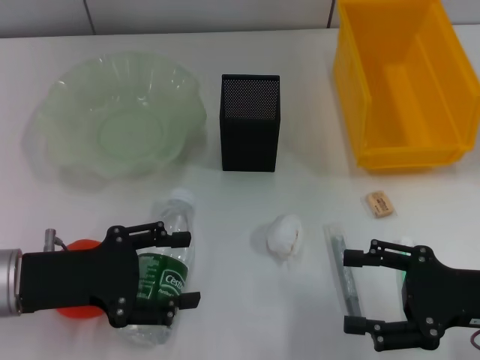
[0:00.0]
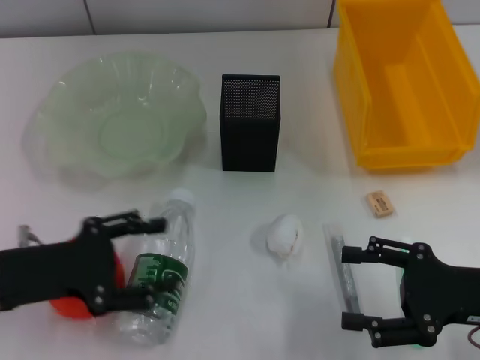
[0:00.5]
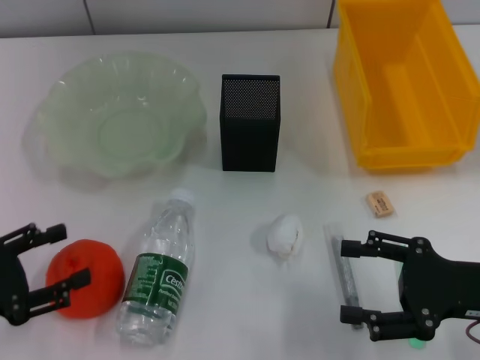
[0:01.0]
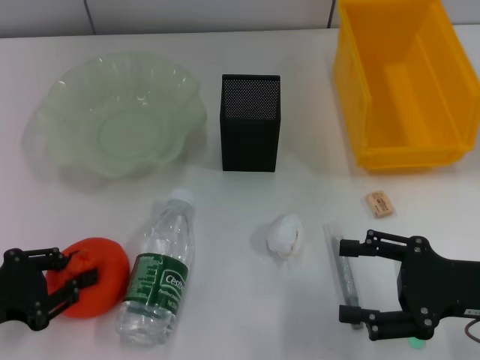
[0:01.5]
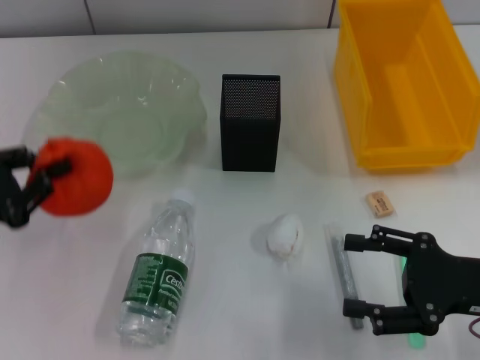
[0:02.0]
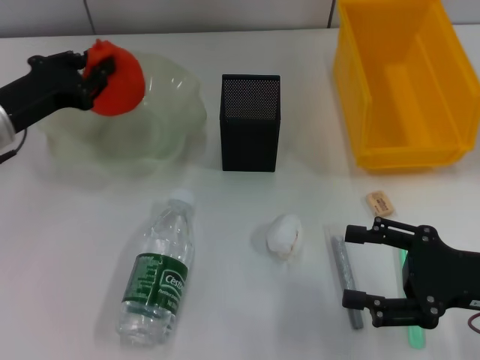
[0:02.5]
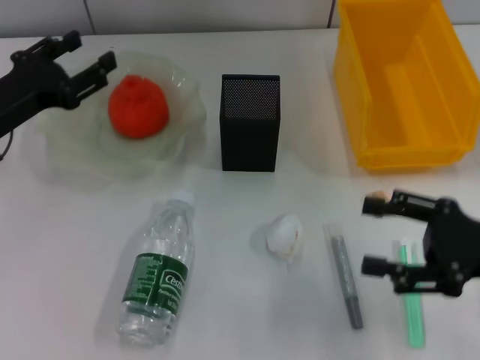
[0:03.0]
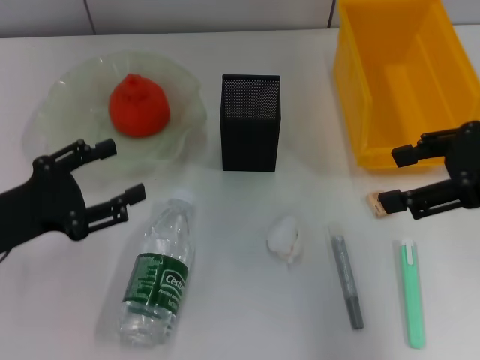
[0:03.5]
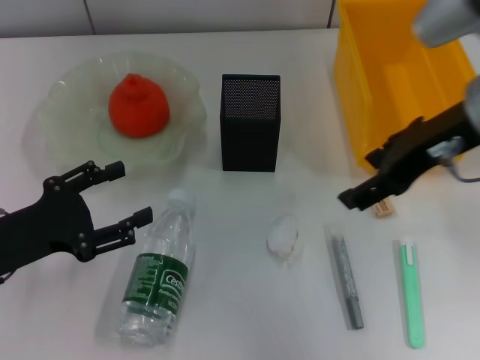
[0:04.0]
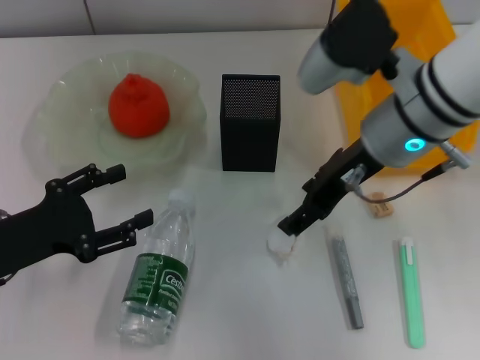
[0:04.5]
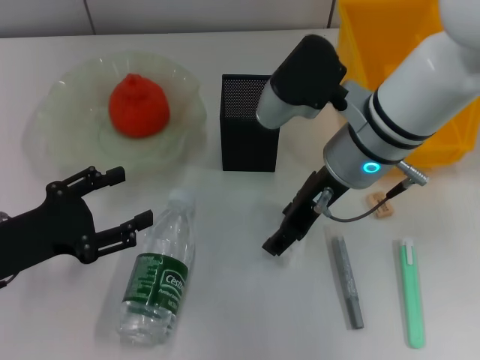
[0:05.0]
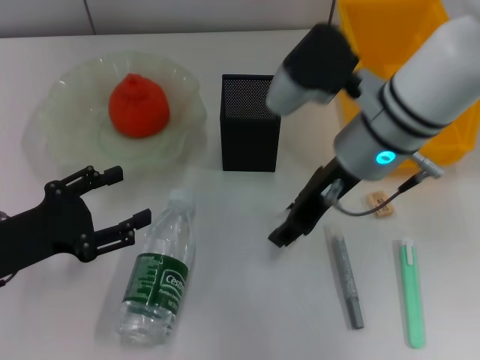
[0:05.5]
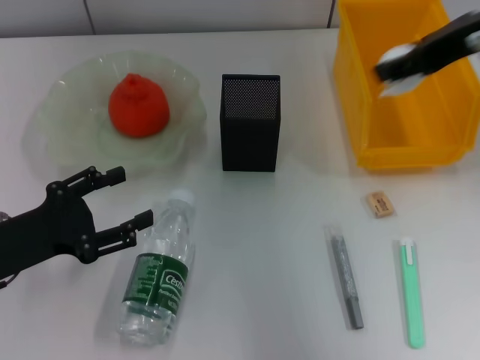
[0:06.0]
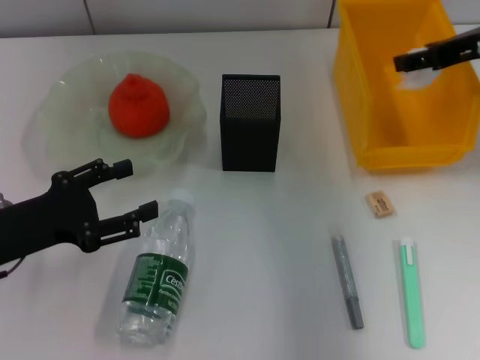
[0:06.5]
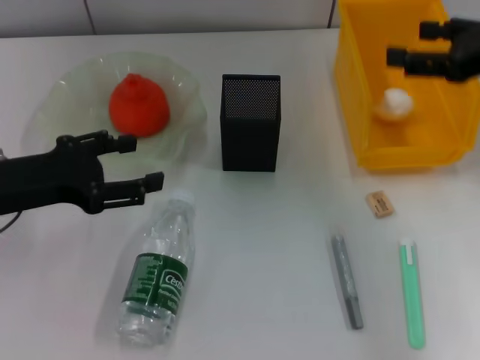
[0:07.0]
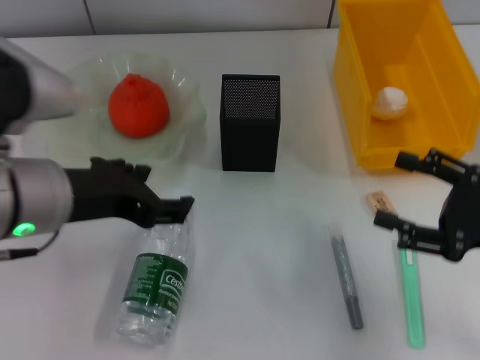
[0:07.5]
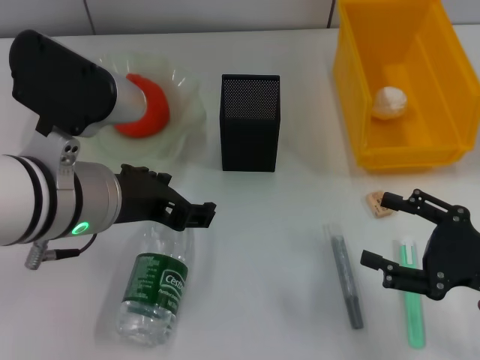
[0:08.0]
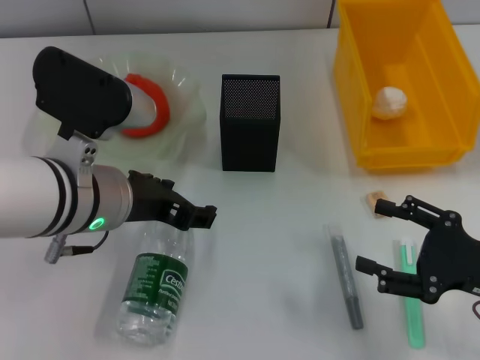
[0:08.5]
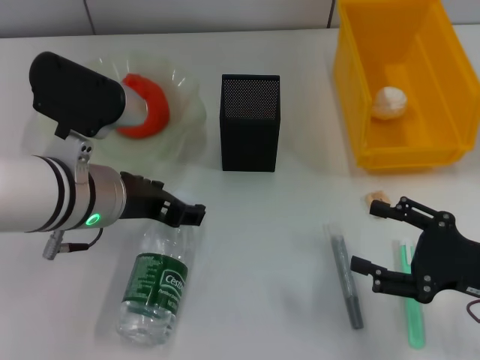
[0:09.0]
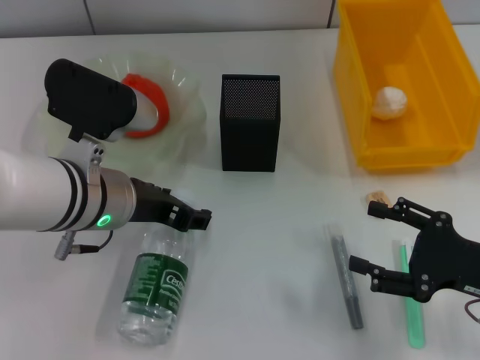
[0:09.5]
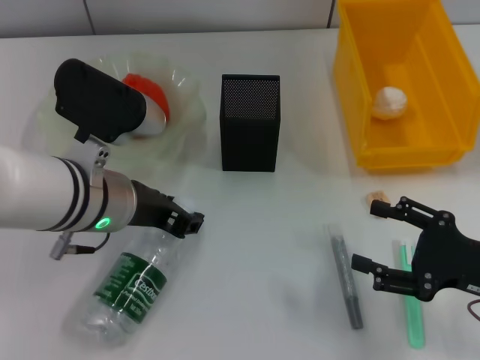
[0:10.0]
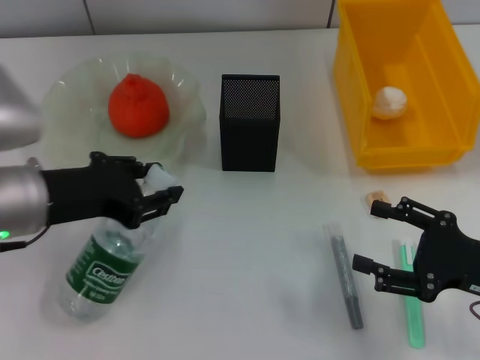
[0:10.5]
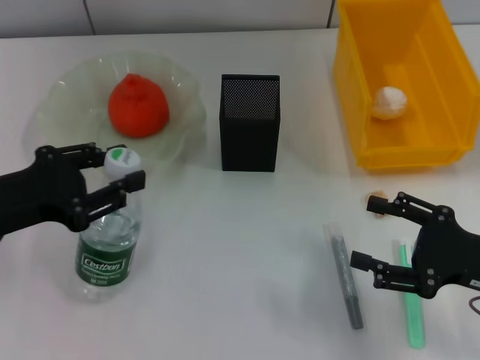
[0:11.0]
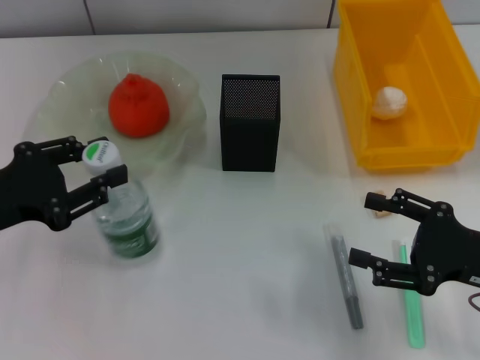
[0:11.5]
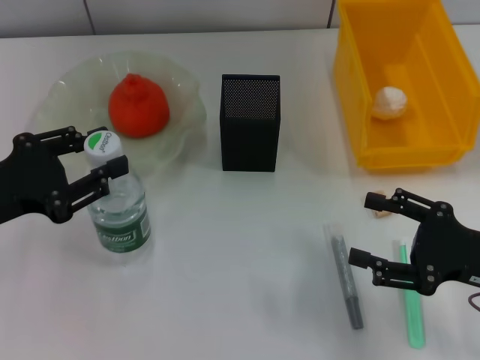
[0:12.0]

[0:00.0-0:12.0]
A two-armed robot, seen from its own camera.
Step, 0:00.0 to 0:01.5: Grab the orange with the left hand.
Step, 0:02.0 to 0:02.5: Place the orange into the fruit bowl with the left hand.
Step, 0:03.0 to 0:05.0: Grab the paper ball with the right hand.
Step, 0:05.5 to 0:06.5: Place the paper ball into the trash can with the right hand.
Step, 0:07.5 to 0:09.5: Grab the water bottle with the left hand.
0:00.0 to 0:02.0: The left gripper is displaced to the left by about 10 cm, and closes its fingers.
0:02.0 to 0:04.0: The right gripper moves upward, forward and to the left, approximately 20 cm. Meanwhile the left gripper reaches roughly 10 cm forward, then returns, and opens its fingers.
0:04.0 to 0:06.0: The right gripper shifts approximately 5 cm to the right, and closes its fingers.
0:06.0 to 0:08.0: The right gripper travels downward and backward by roughly 25 cm, and opens its fingers; the left gripper moves to the right and upward, about 20 cm.
0:08.0 to 0:10.0: The left gripper changes place by roughly 5 cm, and closes its fingers.
0:10.0 to 0:12.0: The left gripper is displaced to the left by approximately 15 cm.

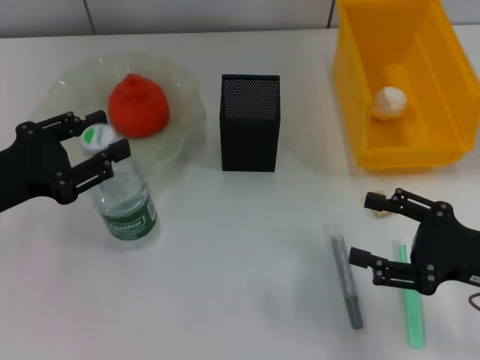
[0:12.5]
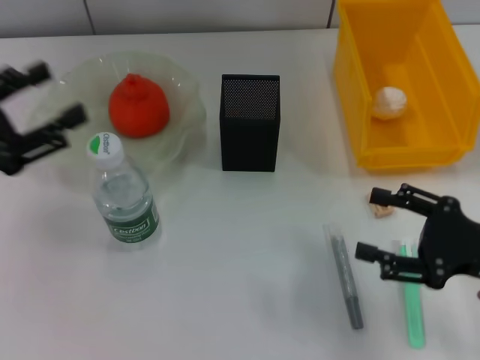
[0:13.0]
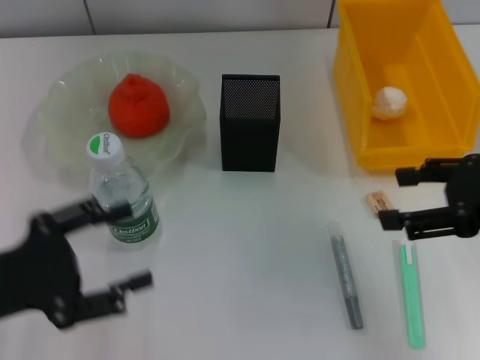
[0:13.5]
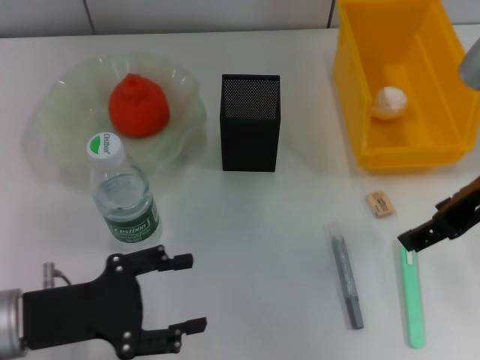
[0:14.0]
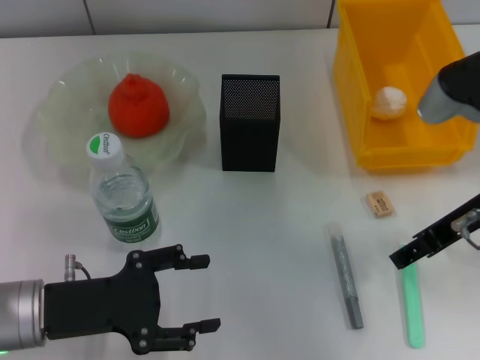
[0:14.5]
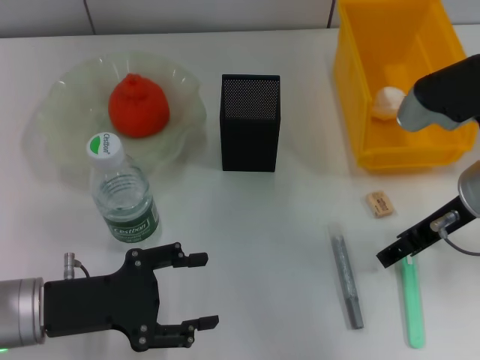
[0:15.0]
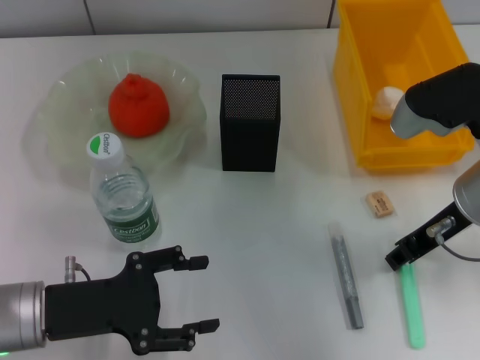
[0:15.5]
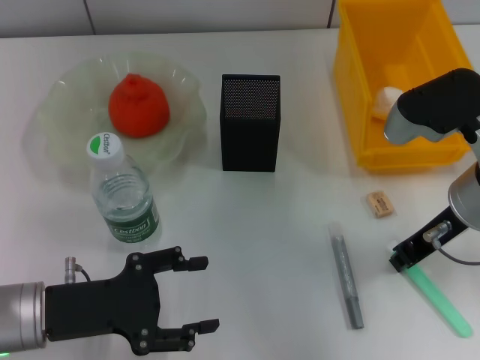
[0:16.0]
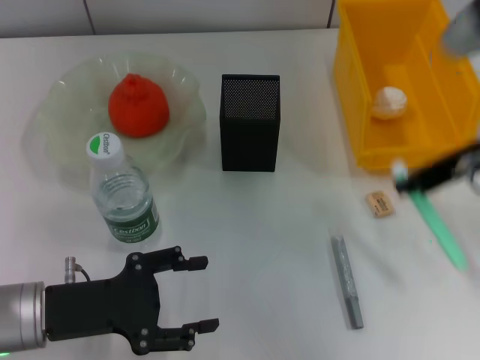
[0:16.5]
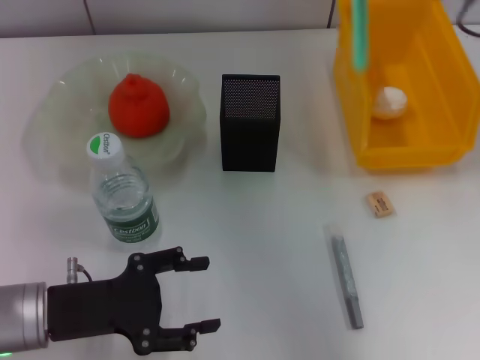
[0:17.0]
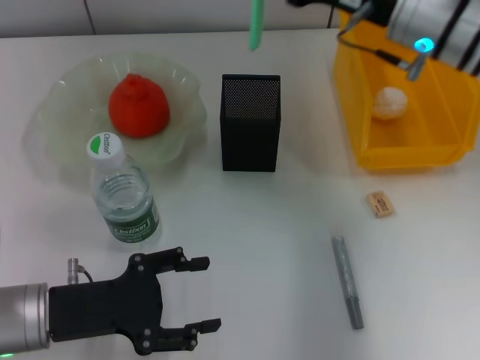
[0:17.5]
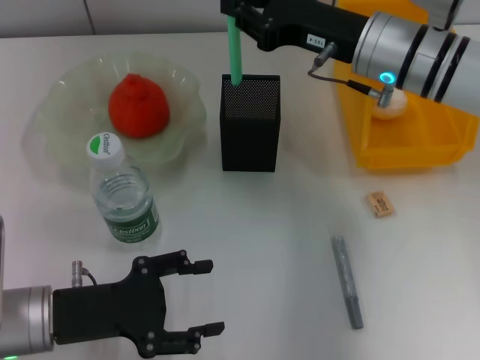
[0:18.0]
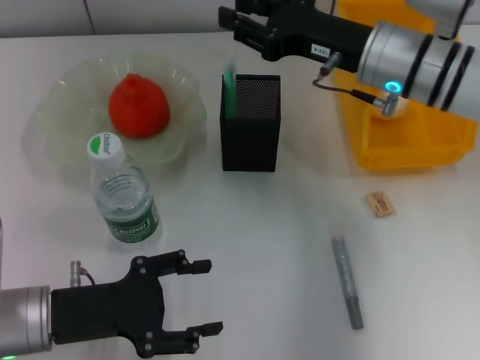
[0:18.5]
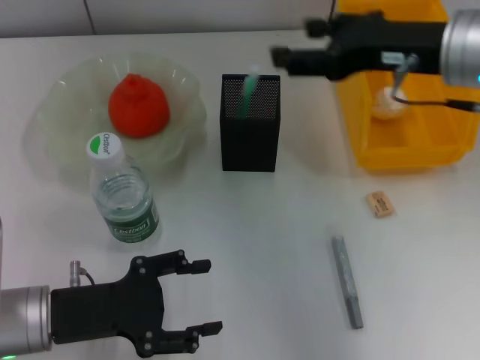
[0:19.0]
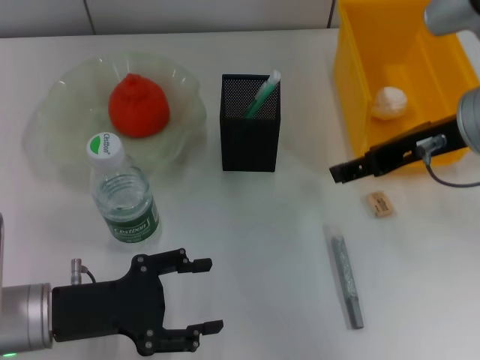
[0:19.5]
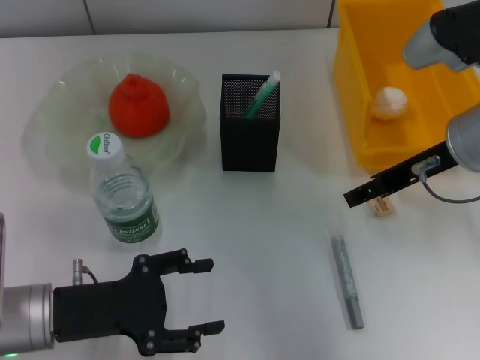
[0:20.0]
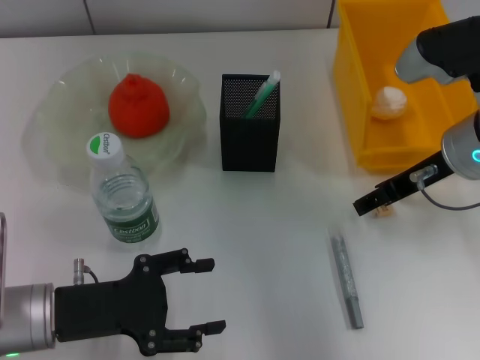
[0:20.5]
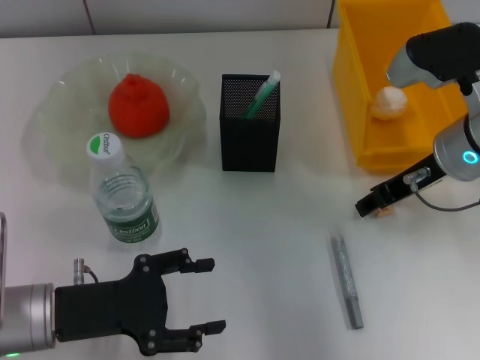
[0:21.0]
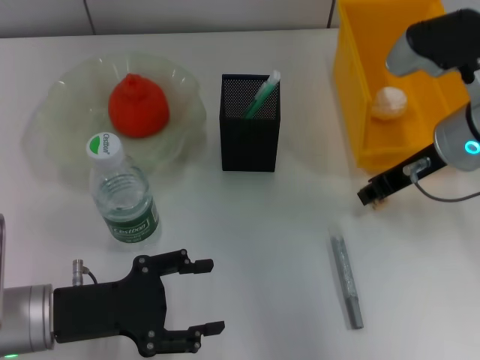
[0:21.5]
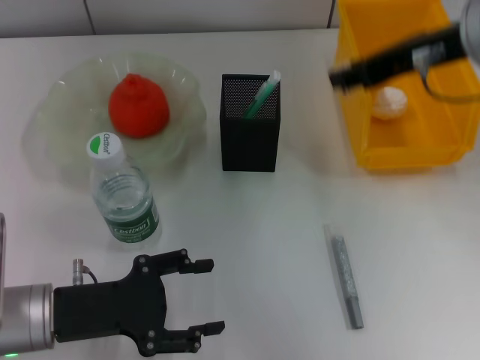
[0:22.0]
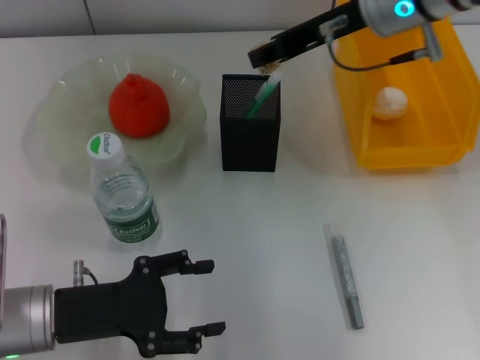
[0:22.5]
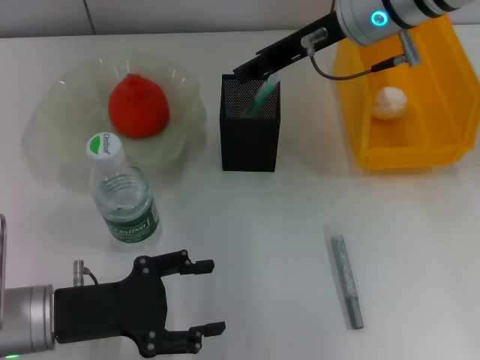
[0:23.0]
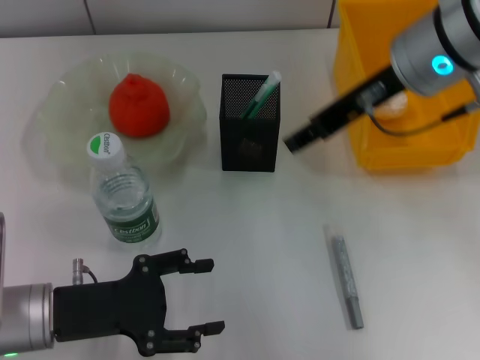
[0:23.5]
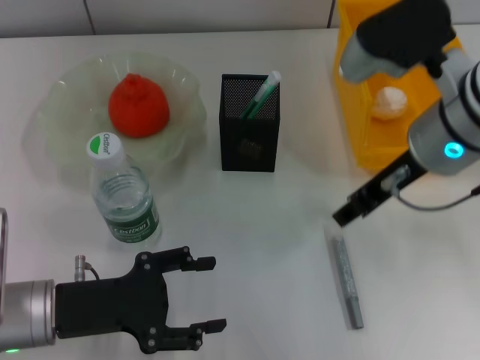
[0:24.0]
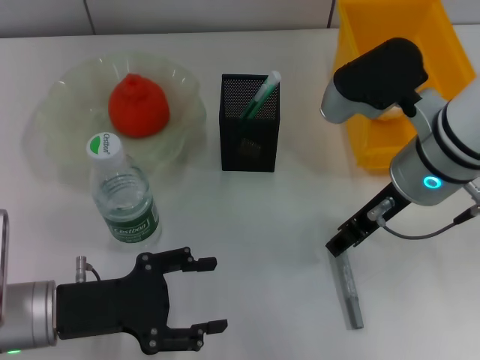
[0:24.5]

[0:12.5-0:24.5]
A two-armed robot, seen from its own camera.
Step, 0:13.0 to 0:16.0: Grab the blue utility knife with the right hand.
Step, 0:16.5 to 0:18.5: Place the blue utility knife into the pen holder with the right hand.
Step, 0:19.0 to 0:21.0: Grab the eraser with the right hand.
Step, 0:21.5 to 0:23.0: Put the eraser into the pen holder with the right hand.
0:12.5 to 0:14.5: The right gripper travels upward, to the left and forward by about 15 cm. Meanwhile the left gripper heads downward and to the right, covering about 10 cm, and opens up.
0:14.5 to 0:16.5: The right gripper travels upward by about 5 cm, and closes up.
0:16.5 to 0:18.5: The right gripper goes some 15 cm forward, downward and to the left.
0:18.5 to 0:20.5: The right gripper heads to the right, covering roughly 5 cm, travels upward and back again, about 10 cm each way, and opens its fingers.
0:20.5 to 0:22.5: The right gripper shifts about 15 cm upward, to the left and forward, and closes its fingers.
0:22.5 to 0:24.5: The right gripper goes approximately 10 cm backward and downward, and opens up.

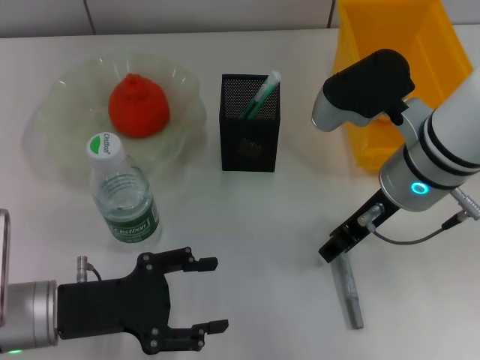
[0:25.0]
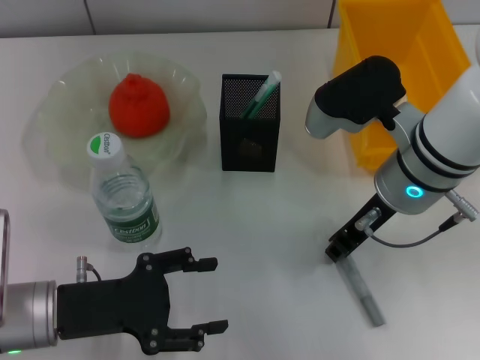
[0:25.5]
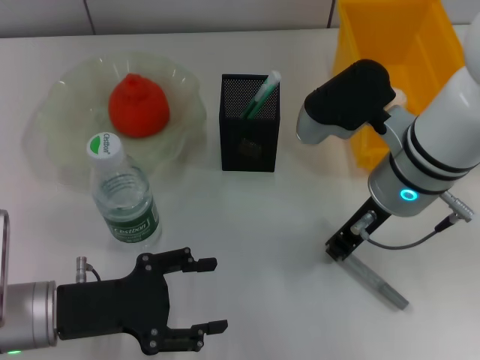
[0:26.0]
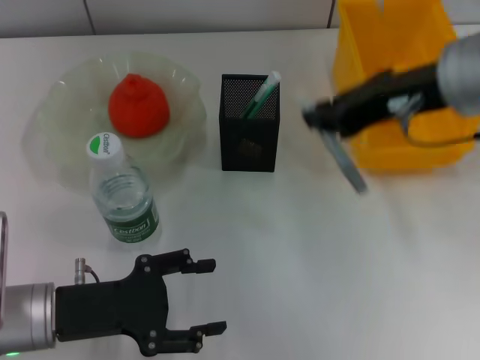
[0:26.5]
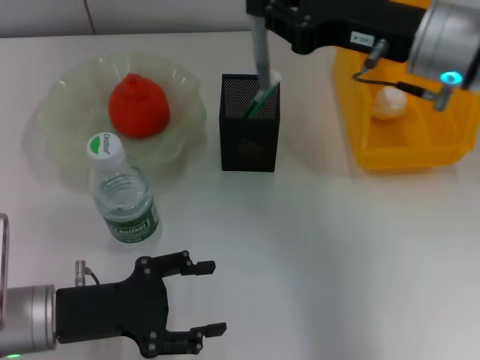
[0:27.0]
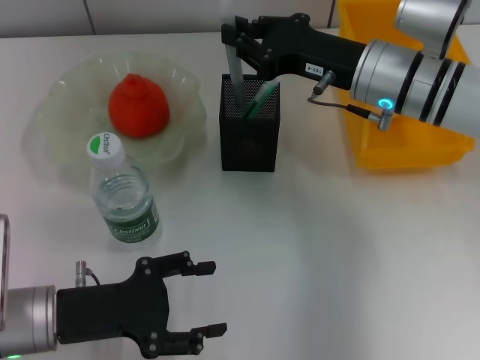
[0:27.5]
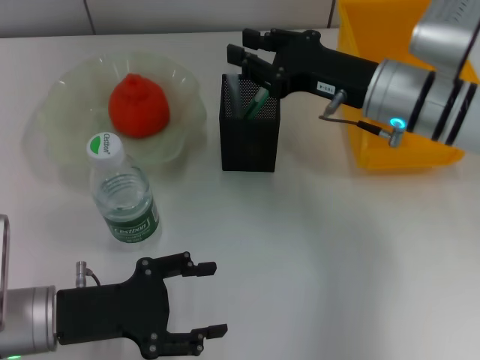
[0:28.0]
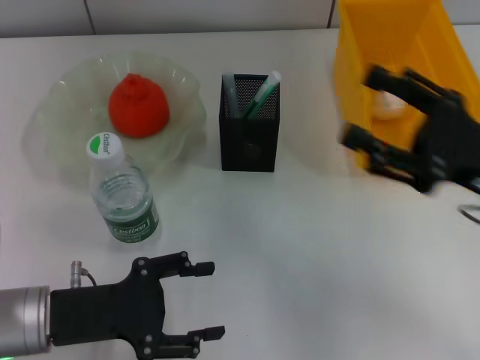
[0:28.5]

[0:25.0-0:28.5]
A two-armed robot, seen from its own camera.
Step, 0:26.0 to 0:28.0: Place the gray glue into the pen holder with the right hand.
0:25.0 to 0:27.0: The right gripper closes up.
0:27.0 to 0:28.5: The right gripper goes approximately 15 cm backward, to the right and downward, and opens up.
